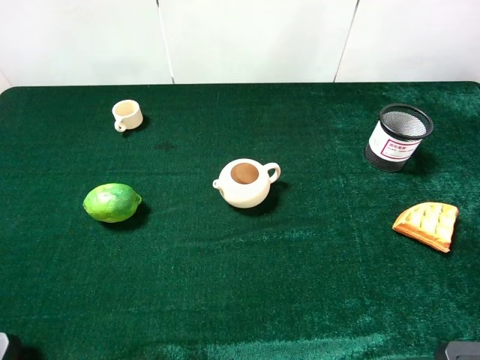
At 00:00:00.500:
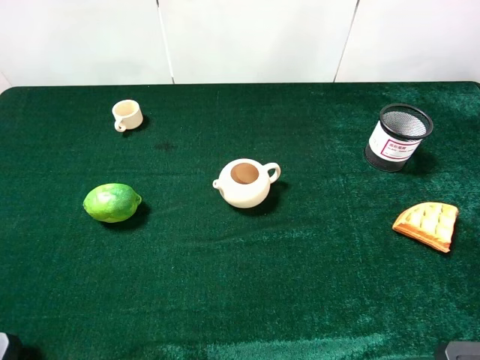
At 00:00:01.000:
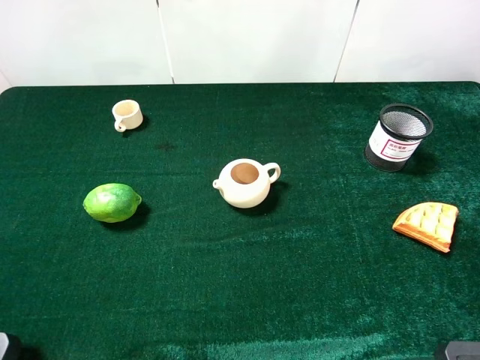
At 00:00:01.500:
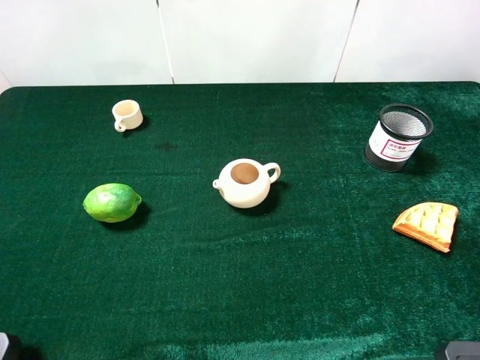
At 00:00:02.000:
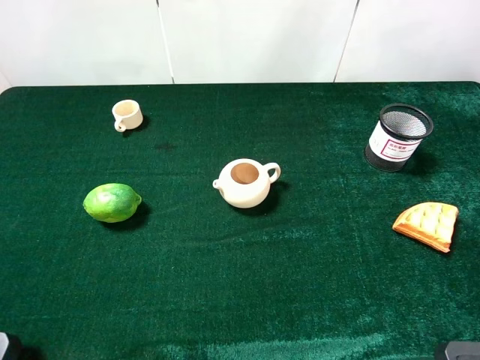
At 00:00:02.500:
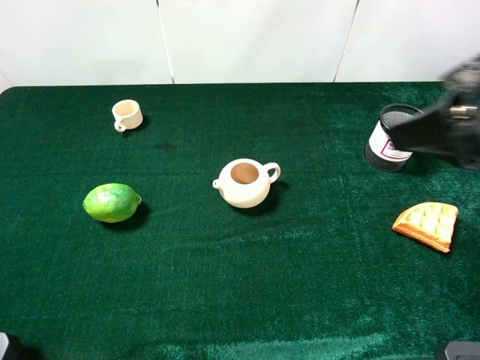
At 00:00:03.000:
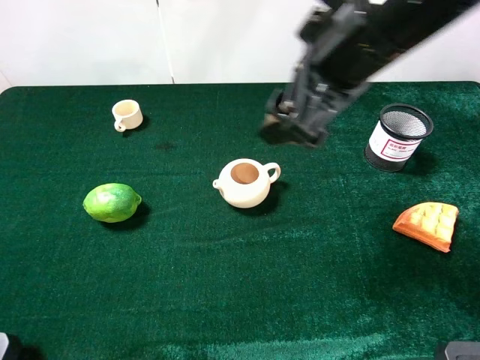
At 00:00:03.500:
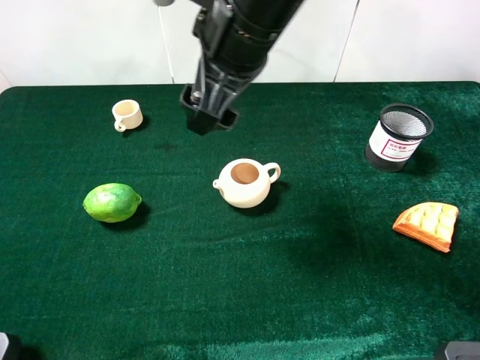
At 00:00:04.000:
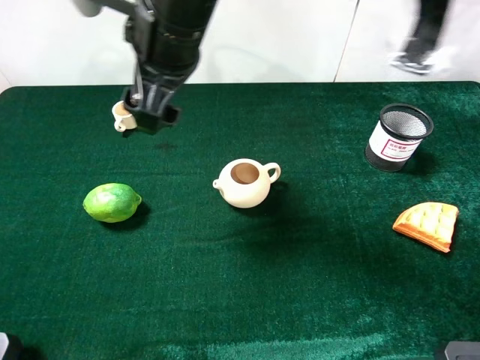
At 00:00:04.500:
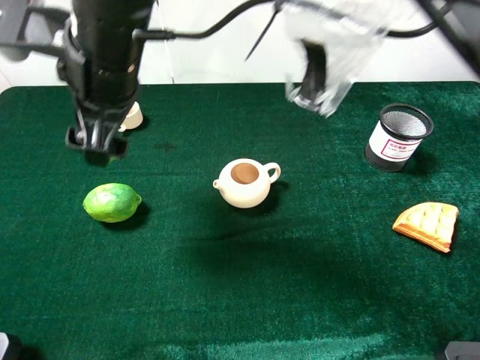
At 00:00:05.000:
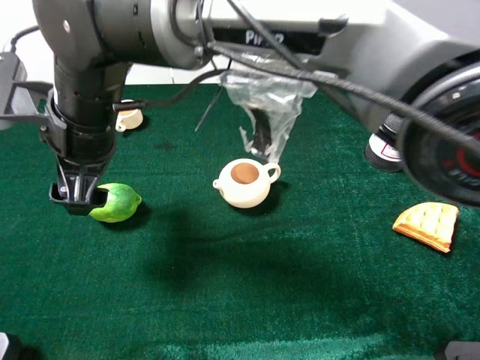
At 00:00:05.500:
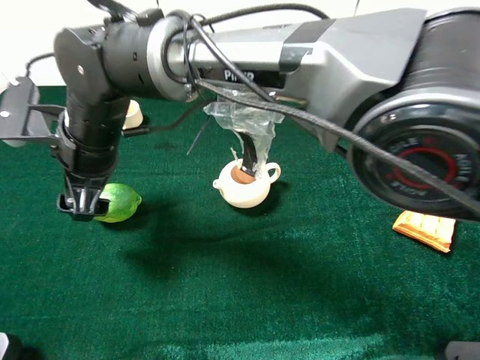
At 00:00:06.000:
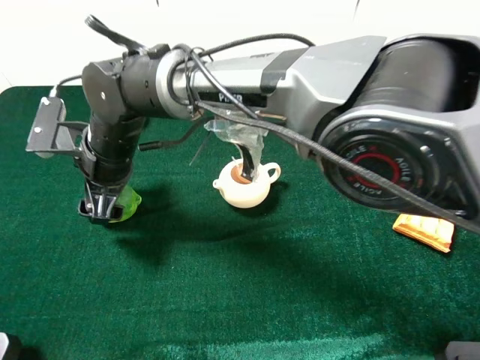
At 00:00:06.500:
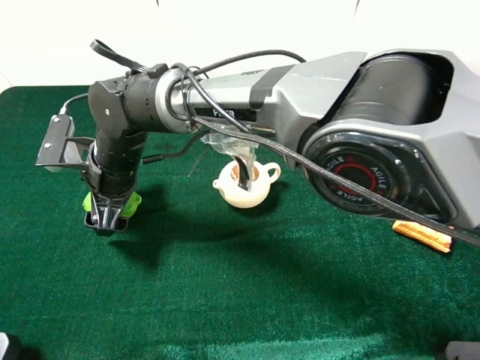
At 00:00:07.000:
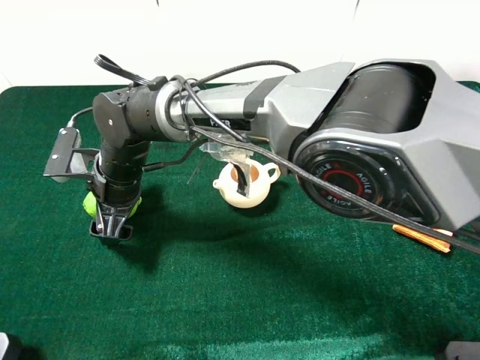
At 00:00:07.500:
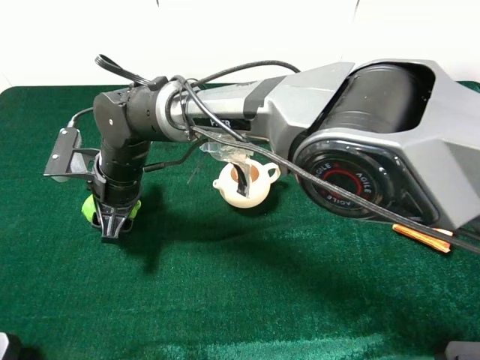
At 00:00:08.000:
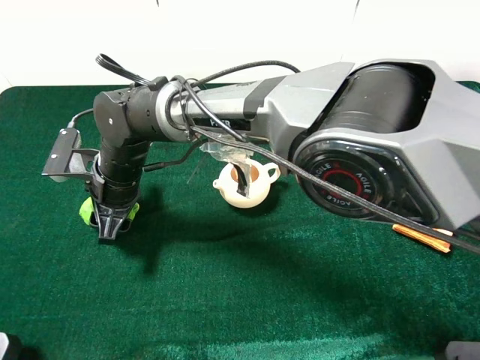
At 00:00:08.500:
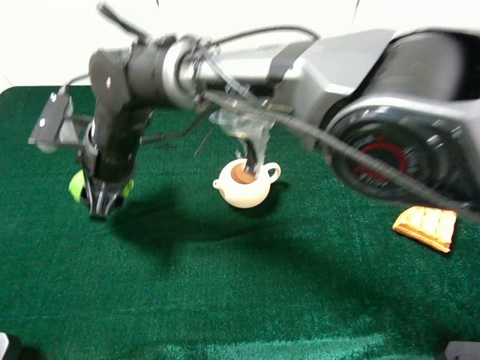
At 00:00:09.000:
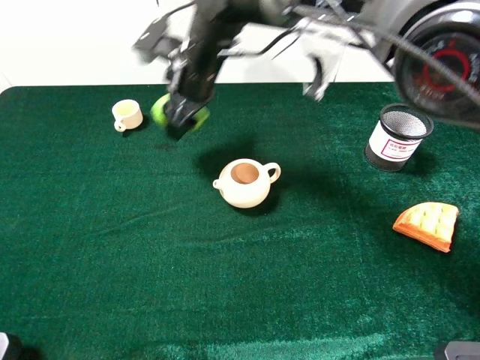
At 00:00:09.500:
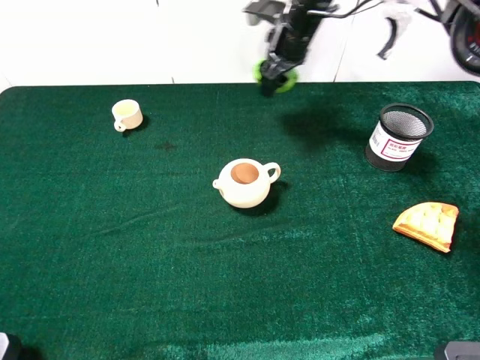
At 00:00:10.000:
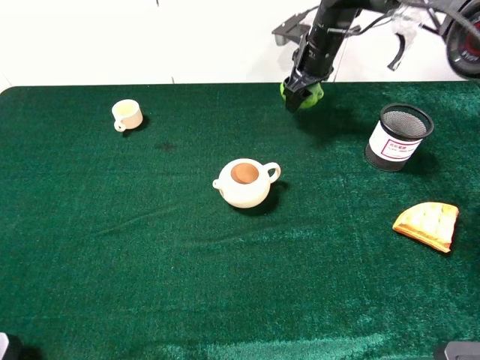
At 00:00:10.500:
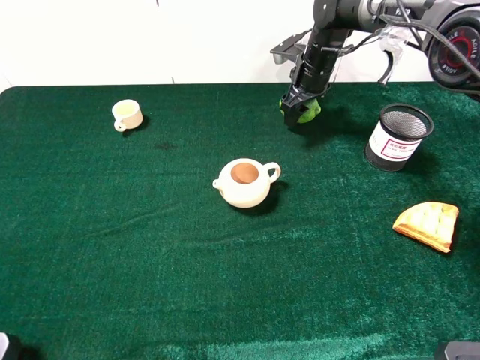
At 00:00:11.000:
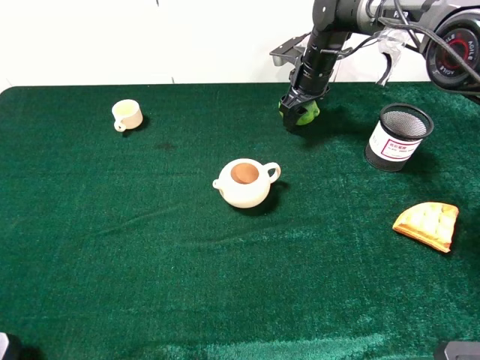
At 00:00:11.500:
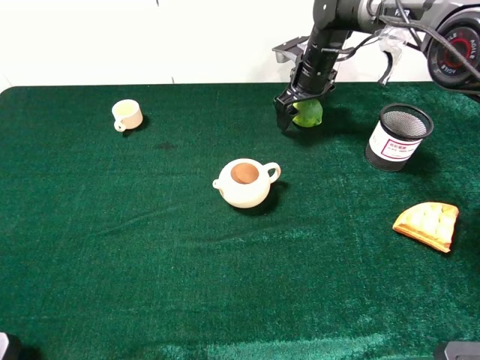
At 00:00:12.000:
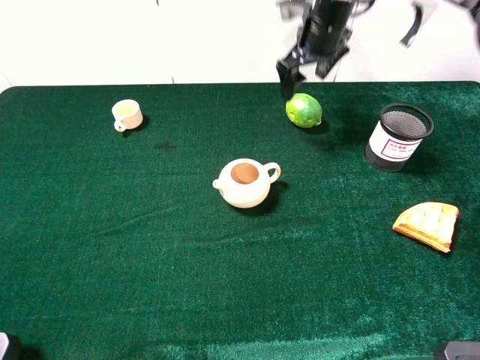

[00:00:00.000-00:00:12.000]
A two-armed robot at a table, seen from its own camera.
Task of the whole recording: the gripper move the object.
Step, 00:00:00.000 to 00:00:07.500: Grasp the green lemon with the right gripper.
Step, 00:00:08.000 to 00:00:11.500: Place the green lemon on the table with the right gripper.
00:00:02.000 to 00:00:04.000: The right gripper is displaced to the left and forward by roughly 40 cm.
00:00:04.000 to 00:00:06.000: The right gripper travels downward and to the left by approximately 20 cm.
00:00:06.000 to 00:00:08.000: The right gripper closes up.
00:00:08.000 to 00:00:10.000: The right gripper heads to the right and forward, covering about 40 cm.
00:00:10.000 to 00:00:12.000: The right gripper shifts about 10 cm upward, and opens its fingers.

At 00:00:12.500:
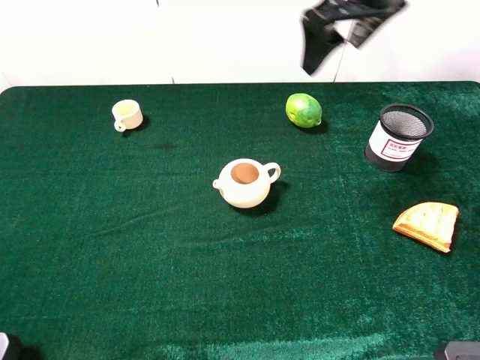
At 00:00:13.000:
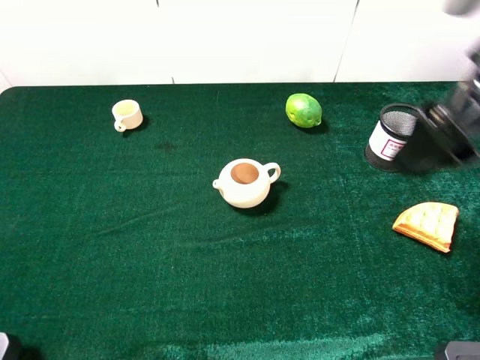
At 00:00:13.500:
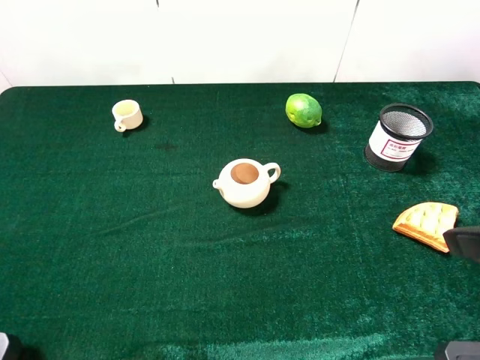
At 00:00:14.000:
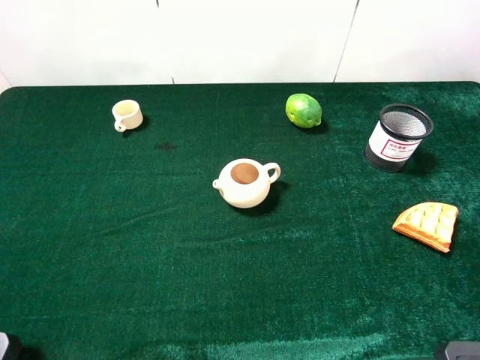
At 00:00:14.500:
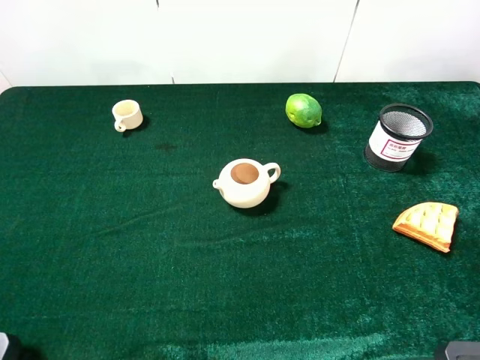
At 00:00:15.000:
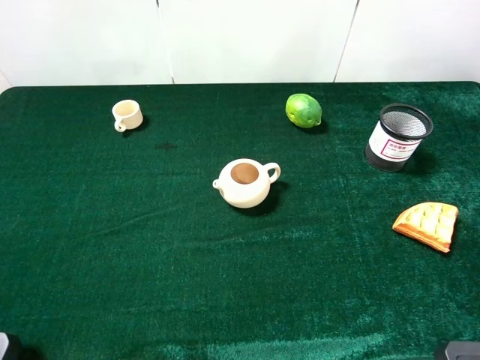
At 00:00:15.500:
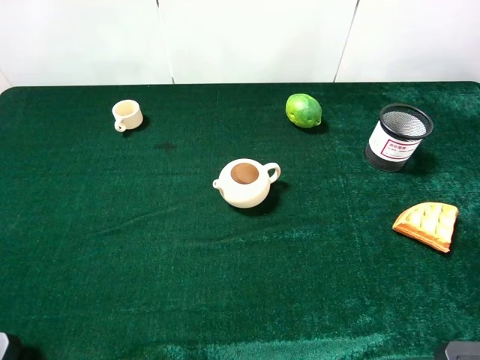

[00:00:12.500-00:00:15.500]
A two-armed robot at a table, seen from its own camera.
Task of the whole recording: the gripper move the object.
00:00:12.500 to 00:00:14.000: The right gripper moves backward and to the right, some 35 cm.

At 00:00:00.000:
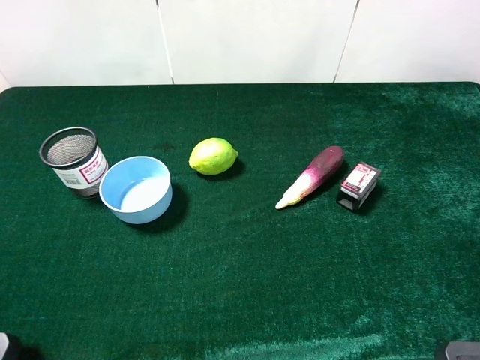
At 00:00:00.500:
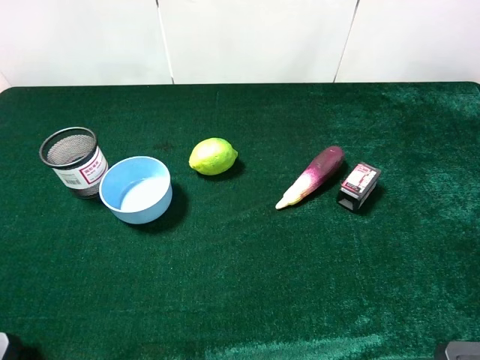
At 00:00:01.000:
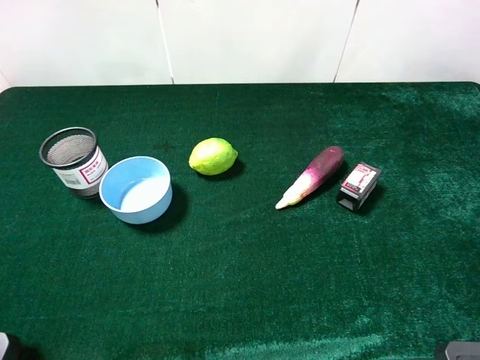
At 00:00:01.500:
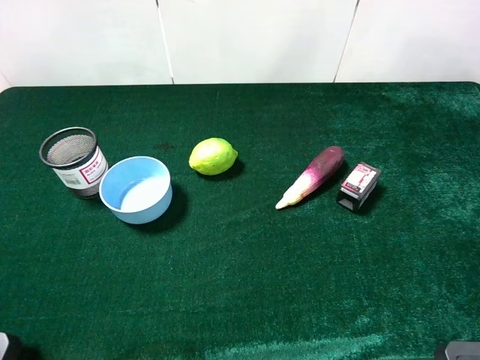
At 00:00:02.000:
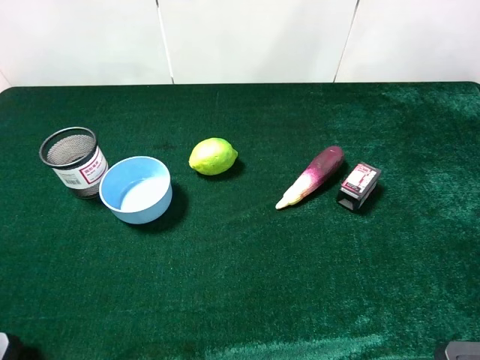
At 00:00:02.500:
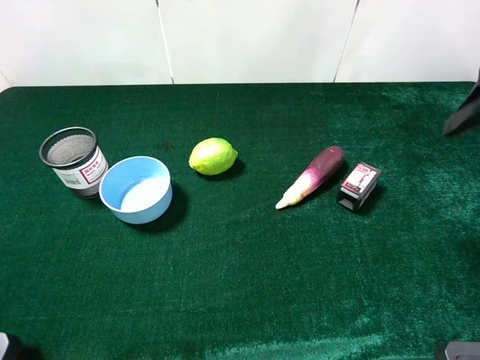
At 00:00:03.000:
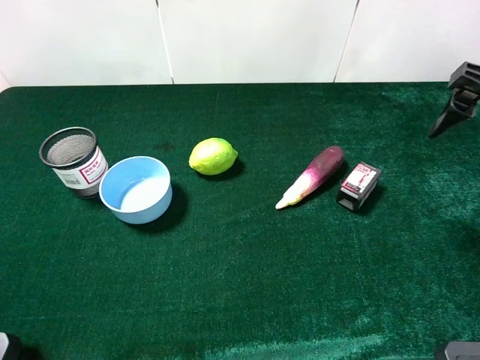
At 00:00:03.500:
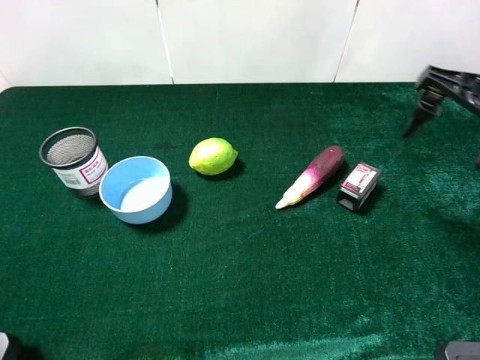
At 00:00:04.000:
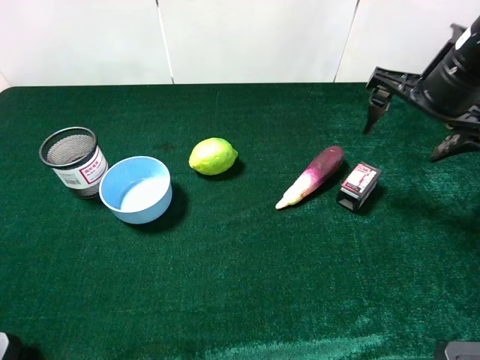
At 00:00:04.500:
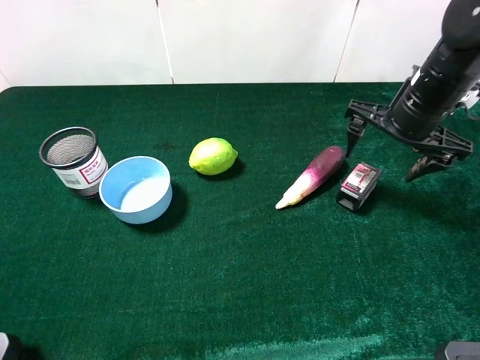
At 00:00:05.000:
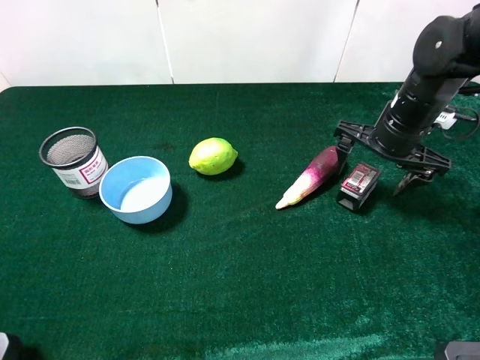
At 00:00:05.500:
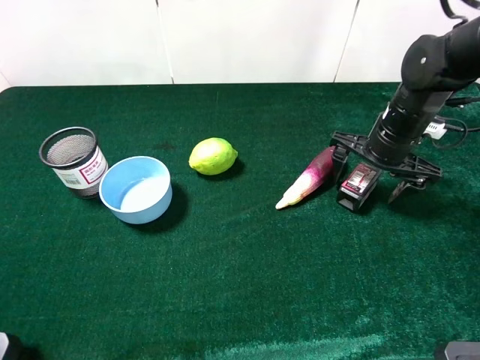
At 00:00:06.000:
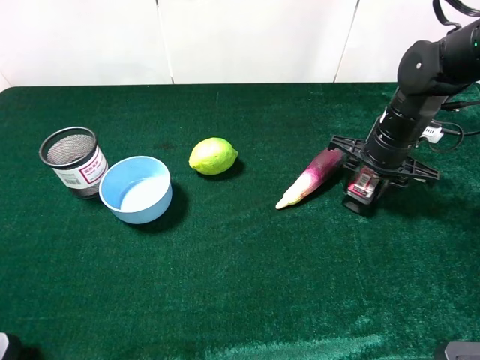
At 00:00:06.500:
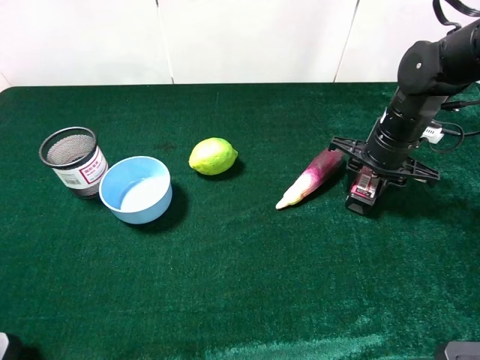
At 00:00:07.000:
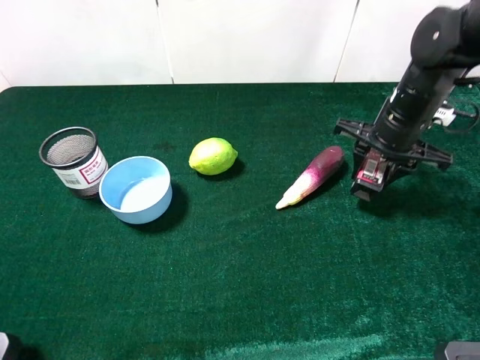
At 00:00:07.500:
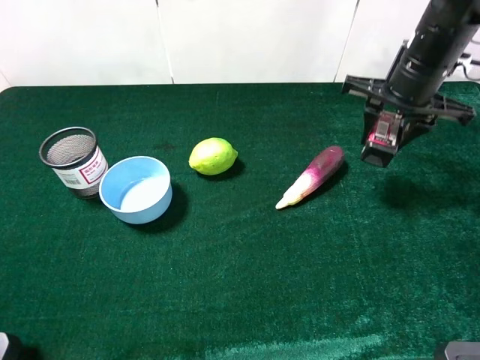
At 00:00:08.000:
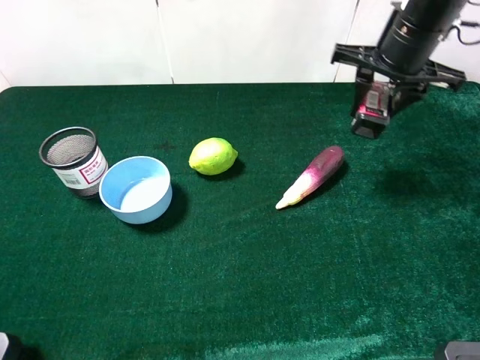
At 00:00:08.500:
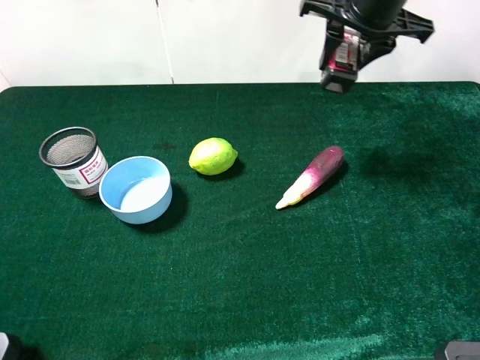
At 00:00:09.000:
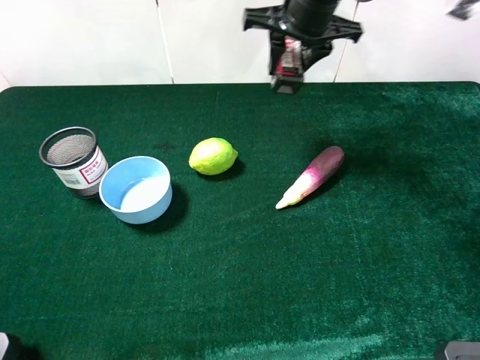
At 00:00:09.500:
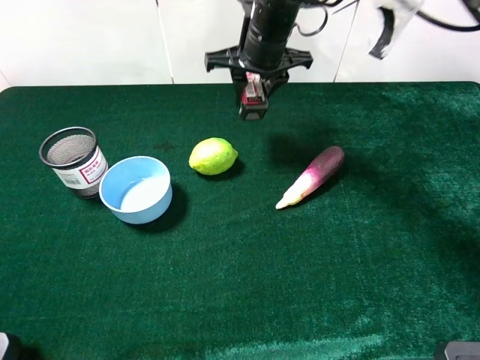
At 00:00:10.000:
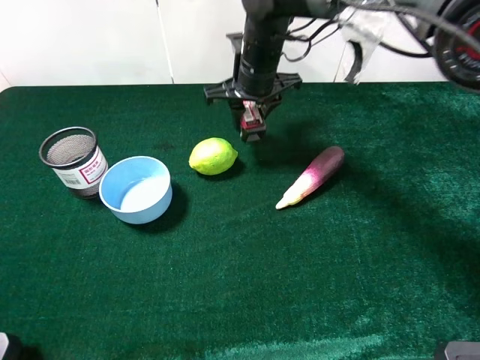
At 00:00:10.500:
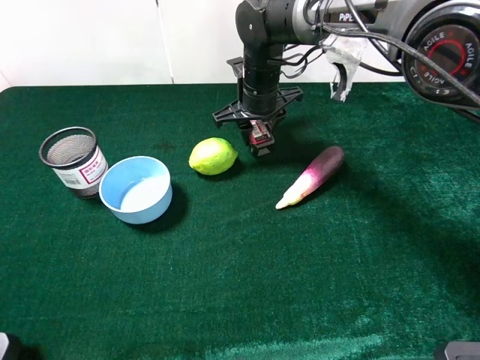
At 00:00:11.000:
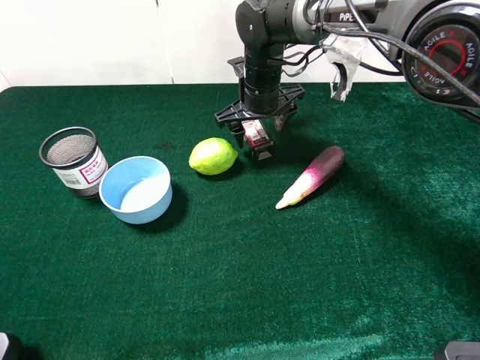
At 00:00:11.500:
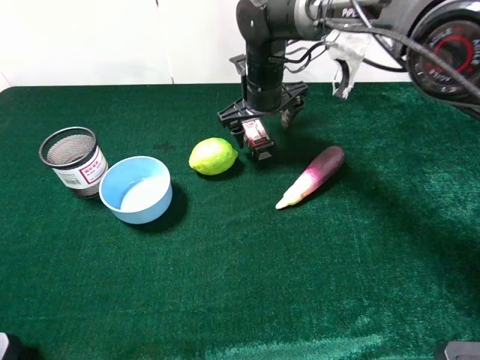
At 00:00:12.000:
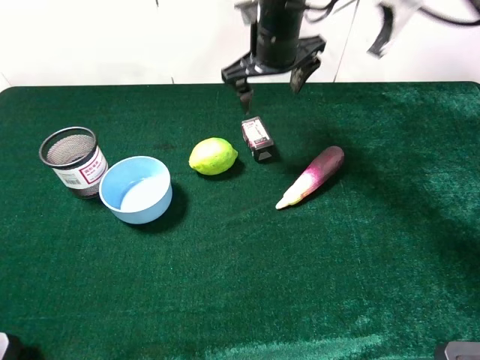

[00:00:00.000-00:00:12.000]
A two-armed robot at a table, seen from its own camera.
Task of the whole recording: the gripper move the object.
Step, 00:00:00.000 to 00:00:06.500: Grasp the square chewing gun with the right gripper.
Step, 00:00:07.000 to 00:00:12.000: Place the square chewing gun on the table with the right gripper.
00:00:02.000 to 00:00:04.000: The right gripper shifts about 15 cm forward and downward.
00:00:04.000 to 00:00:06.000: The right gripper travels downward by approximately 10 cm, and closes its fingers.
00:00:06.000 to 00:00:08.000: The right gripper goes approximately 15 cm upward.
00:00:08.000 to 00:00:10.000: The right gripper moves to the left and downward, roughly 20 cm.
00:00:10.000 to 00:00:12.000: The right gripper is displaced upward by roughly 5 cm, and opens its fingers.
